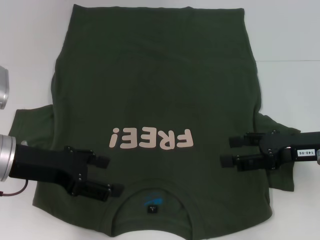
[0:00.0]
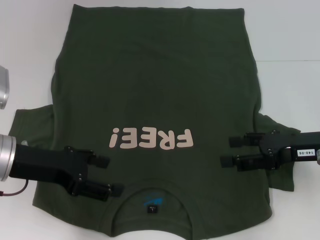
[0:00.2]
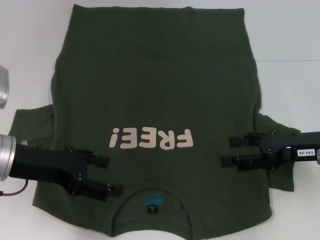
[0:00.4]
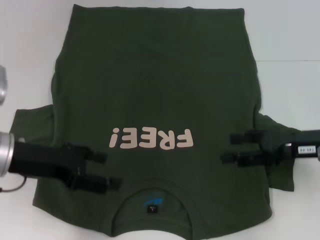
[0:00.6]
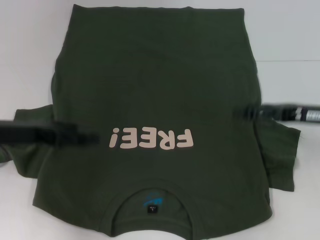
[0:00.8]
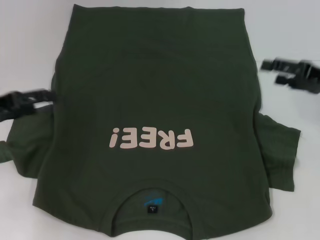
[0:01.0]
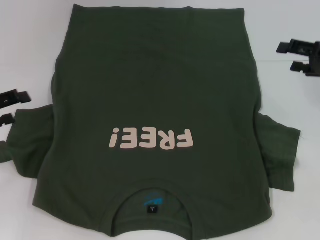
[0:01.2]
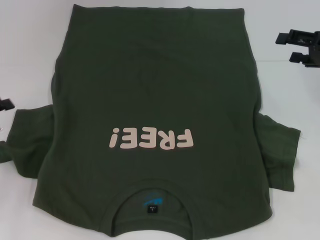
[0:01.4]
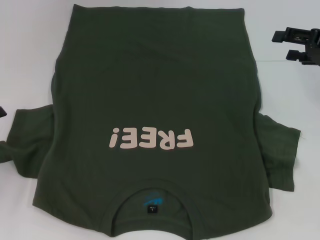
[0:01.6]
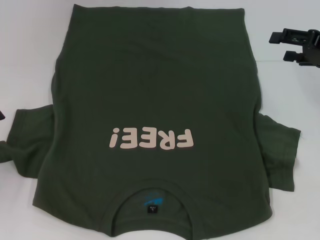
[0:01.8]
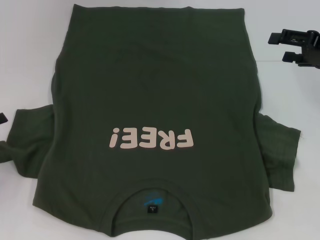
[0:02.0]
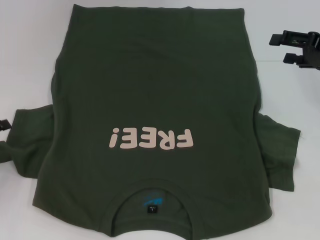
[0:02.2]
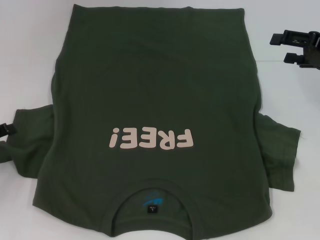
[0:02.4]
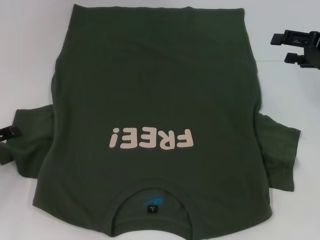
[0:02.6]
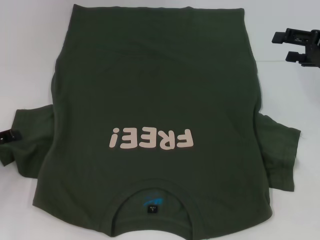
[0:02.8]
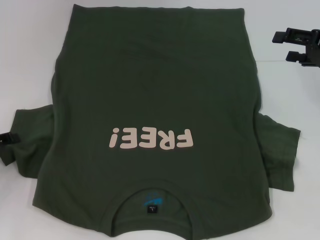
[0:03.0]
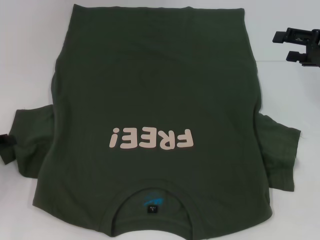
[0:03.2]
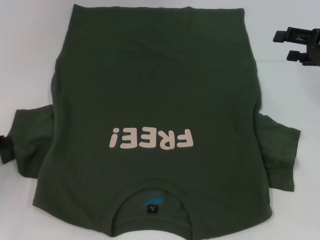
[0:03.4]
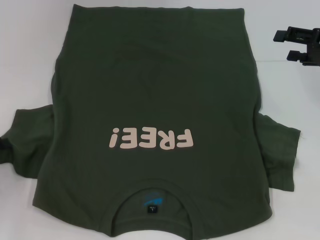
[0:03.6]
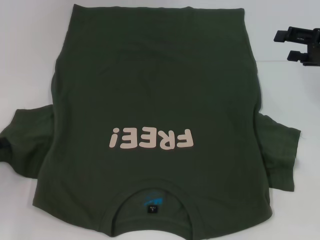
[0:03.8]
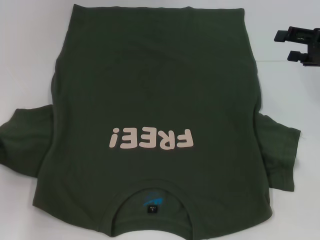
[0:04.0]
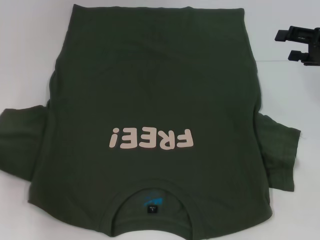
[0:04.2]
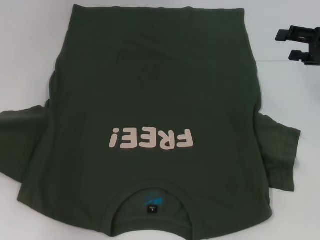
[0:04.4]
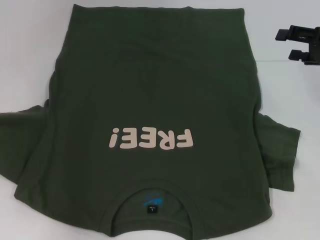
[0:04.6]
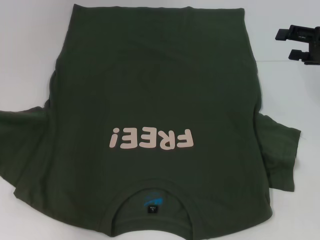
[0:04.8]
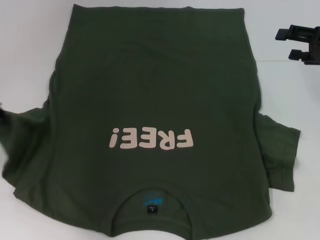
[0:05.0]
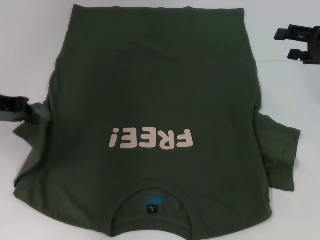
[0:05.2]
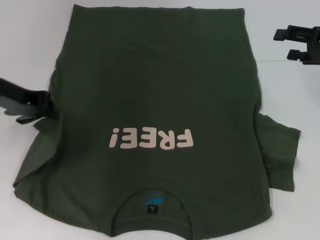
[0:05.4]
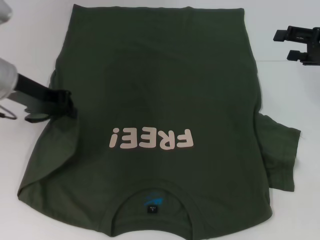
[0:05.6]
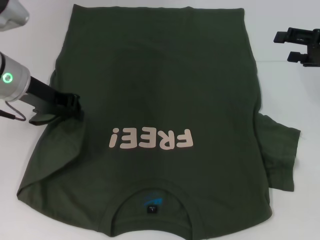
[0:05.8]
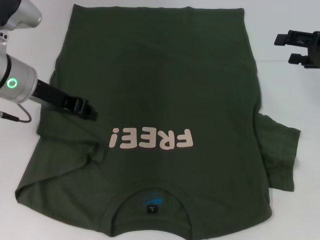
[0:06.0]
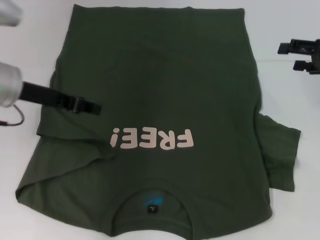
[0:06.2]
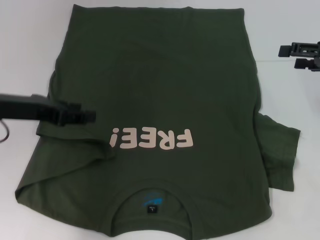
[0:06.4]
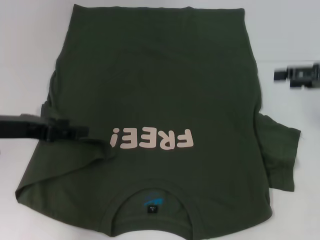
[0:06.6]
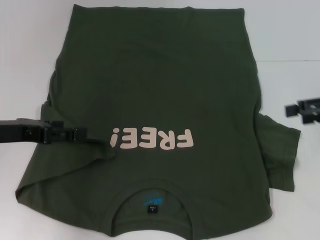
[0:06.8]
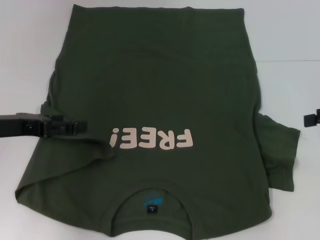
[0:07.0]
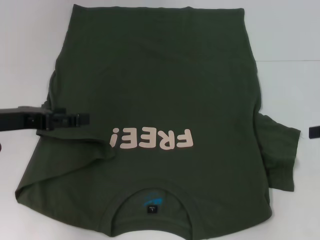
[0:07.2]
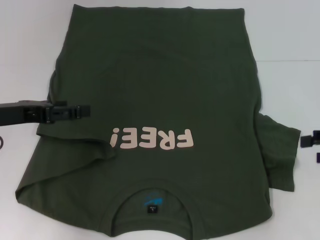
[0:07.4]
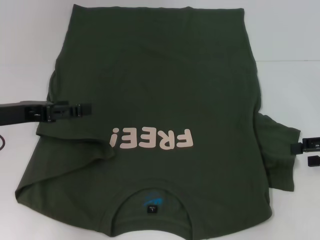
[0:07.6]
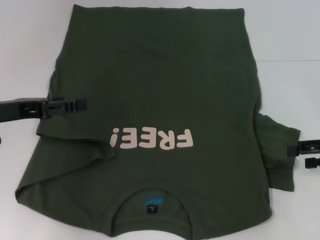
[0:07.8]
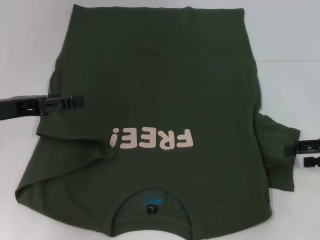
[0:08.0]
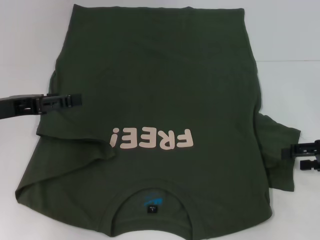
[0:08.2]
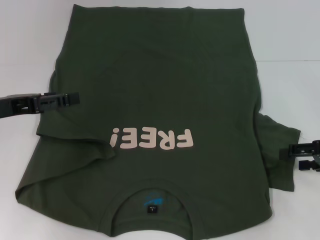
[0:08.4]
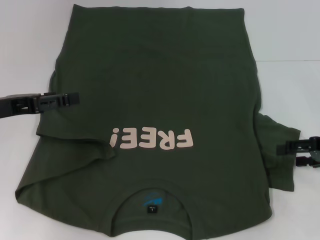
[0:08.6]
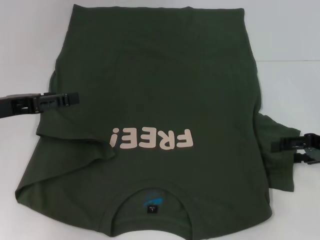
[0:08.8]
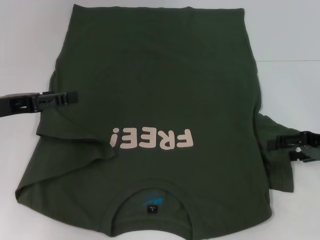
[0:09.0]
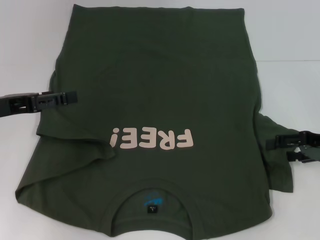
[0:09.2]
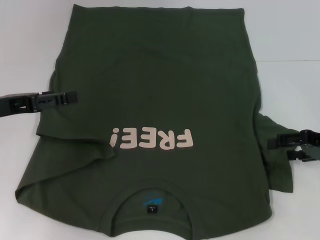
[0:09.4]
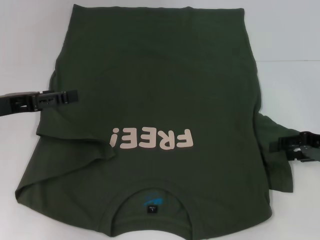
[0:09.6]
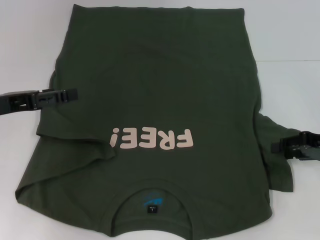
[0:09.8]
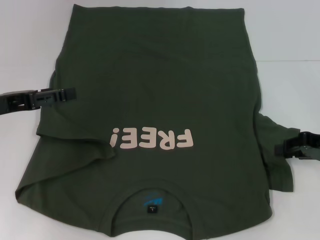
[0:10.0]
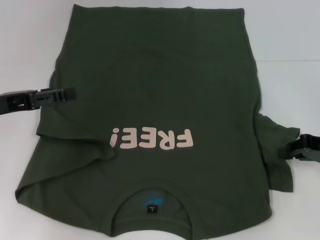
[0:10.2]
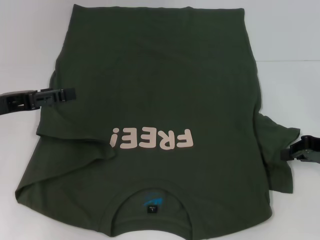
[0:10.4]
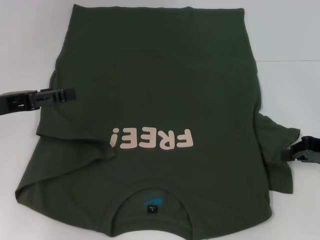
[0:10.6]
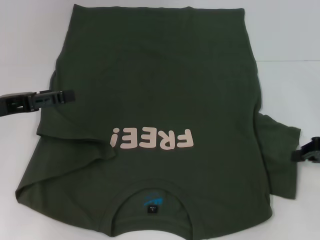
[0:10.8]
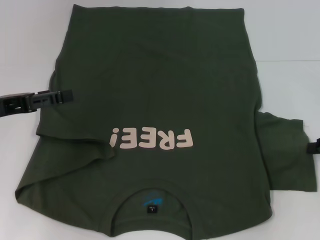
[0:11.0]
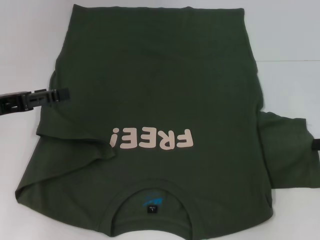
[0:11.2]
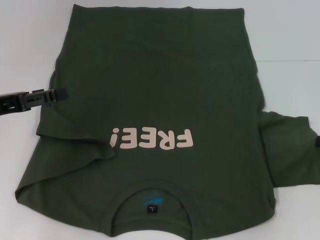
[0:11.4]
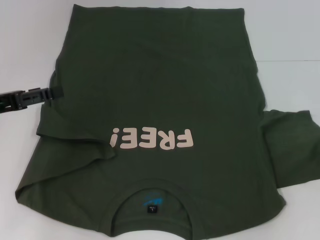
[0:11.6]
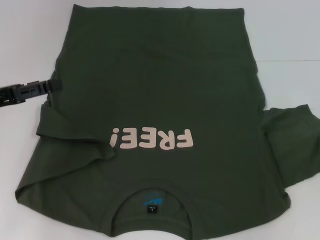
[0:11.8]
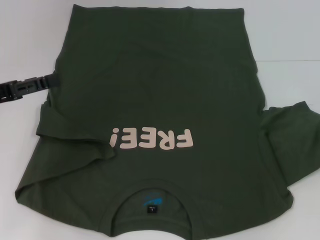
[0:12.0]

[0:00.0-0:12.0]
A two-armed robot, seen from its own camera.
Step, 0:00.0 to 0:06.4: Fold the bottom left sleeve with your left hand.
0:00.0 to 0:01.6: The right gripper is displaced forward and to the right by about 10 cm; the left gripper travels to the left by about 15 cm.
0:03.0 to 0:04.4: The left gripper heads upward, covering roughly 10 cm, and closes its fingers.
0:04.4 to 0:06.0: The left gripper heads to the right, covering about 15 cm.
0:06.0 to 0:07.6: The left gripper heads backward and to the left, covering approximately 10 cm, and opens. Meanwhile the right gripper shifts approximately 10 cm backward.
0:07.6 to 0:09.0: The grippers move only a little.
0:09.0 to 0:10.4: The right gripper closes.
0:10.4 to 0:12.0: The right gripper moves to the right, about 5 cm.

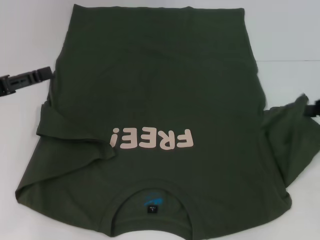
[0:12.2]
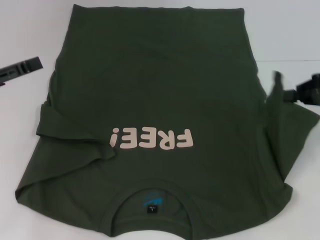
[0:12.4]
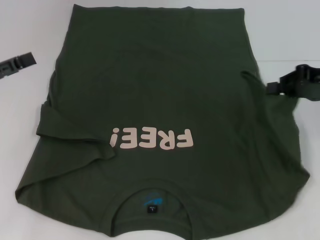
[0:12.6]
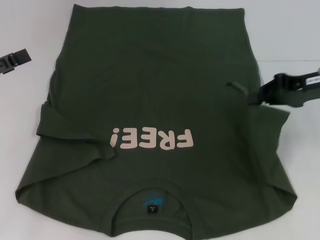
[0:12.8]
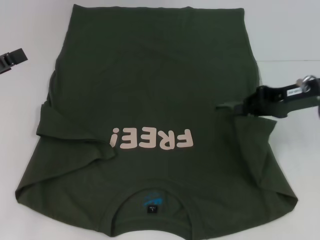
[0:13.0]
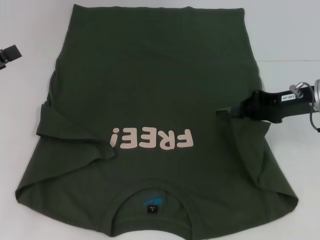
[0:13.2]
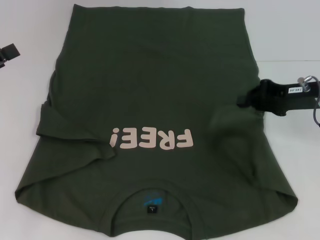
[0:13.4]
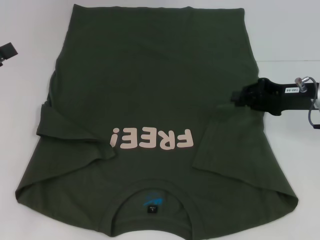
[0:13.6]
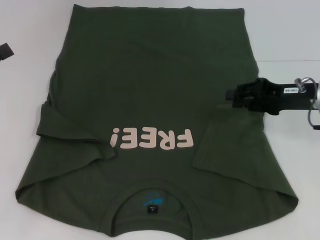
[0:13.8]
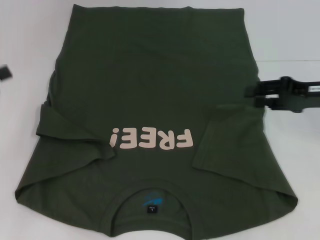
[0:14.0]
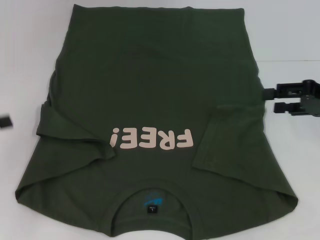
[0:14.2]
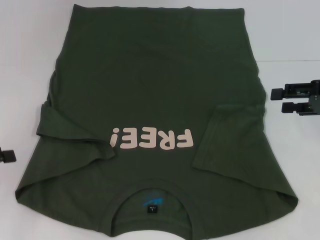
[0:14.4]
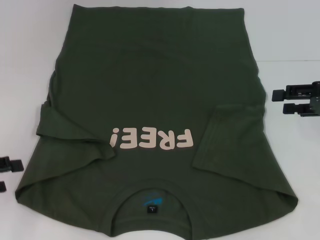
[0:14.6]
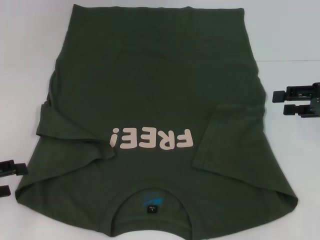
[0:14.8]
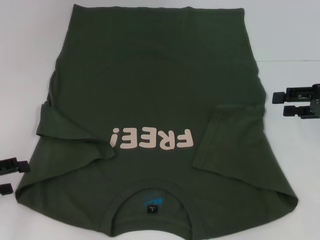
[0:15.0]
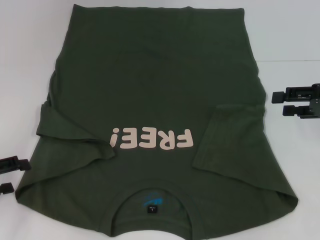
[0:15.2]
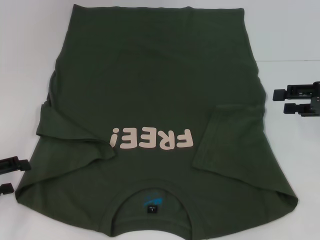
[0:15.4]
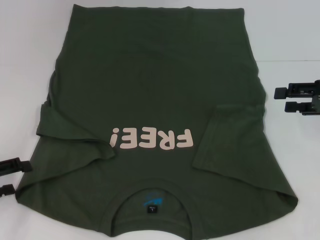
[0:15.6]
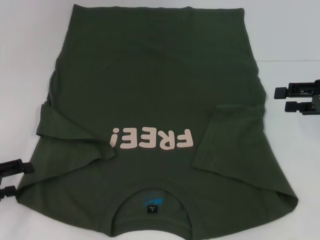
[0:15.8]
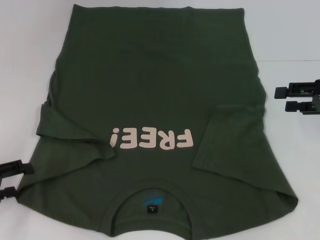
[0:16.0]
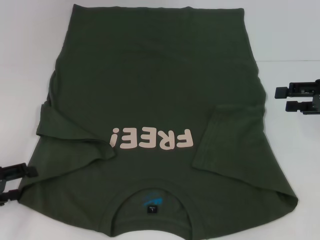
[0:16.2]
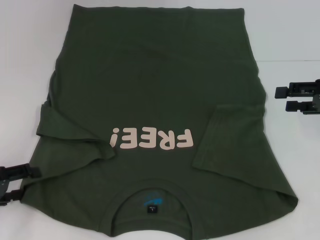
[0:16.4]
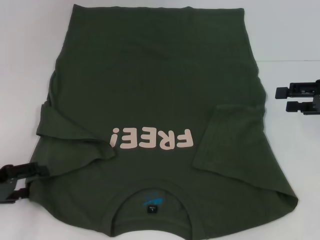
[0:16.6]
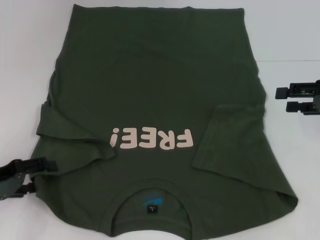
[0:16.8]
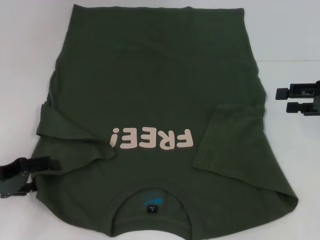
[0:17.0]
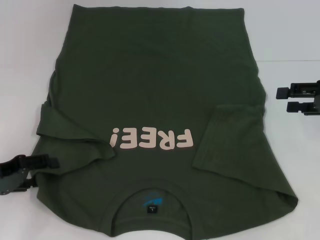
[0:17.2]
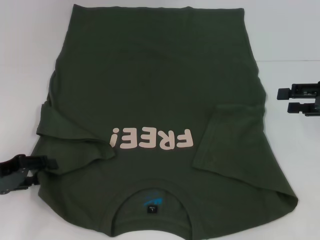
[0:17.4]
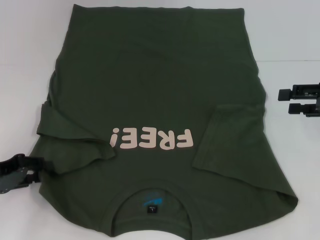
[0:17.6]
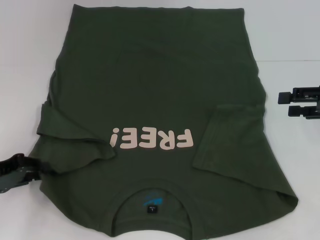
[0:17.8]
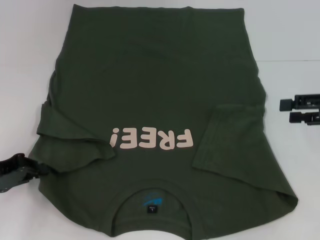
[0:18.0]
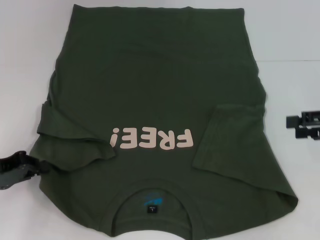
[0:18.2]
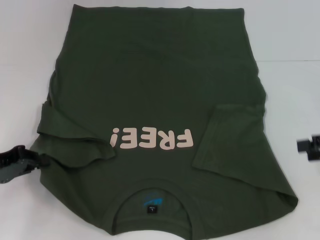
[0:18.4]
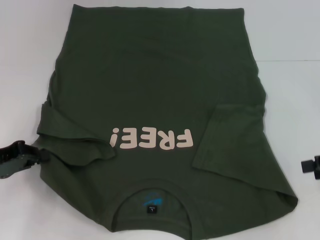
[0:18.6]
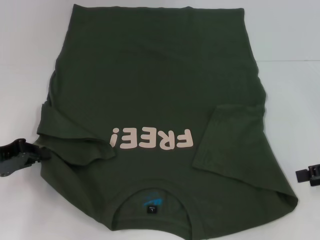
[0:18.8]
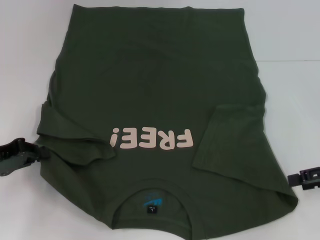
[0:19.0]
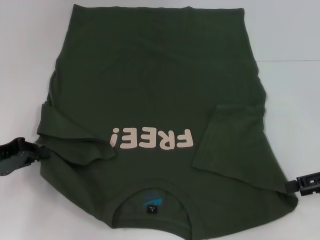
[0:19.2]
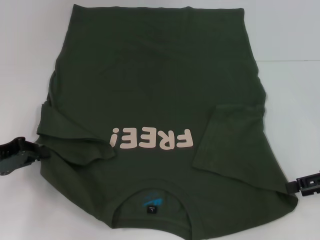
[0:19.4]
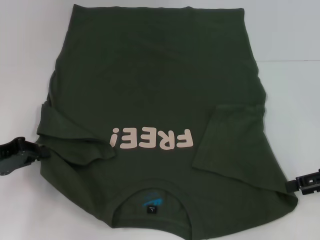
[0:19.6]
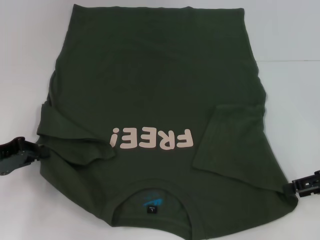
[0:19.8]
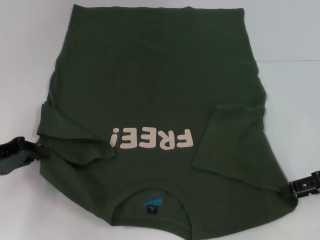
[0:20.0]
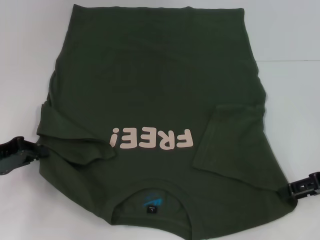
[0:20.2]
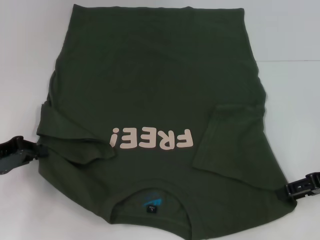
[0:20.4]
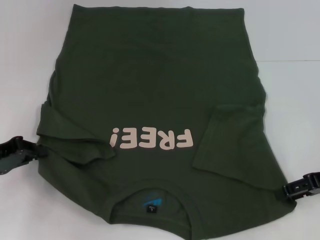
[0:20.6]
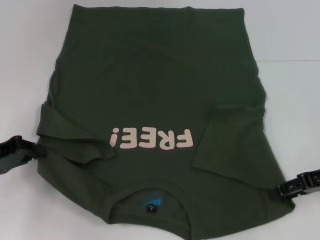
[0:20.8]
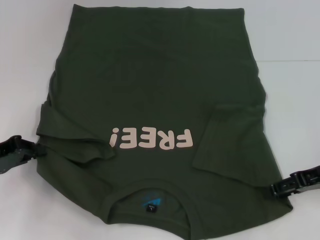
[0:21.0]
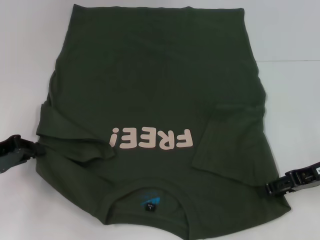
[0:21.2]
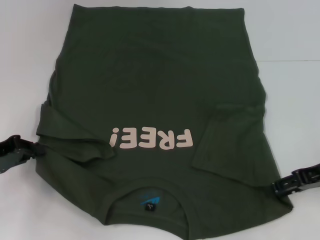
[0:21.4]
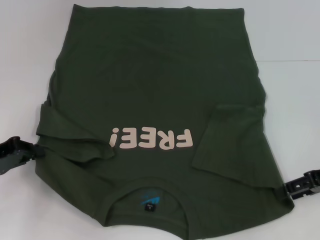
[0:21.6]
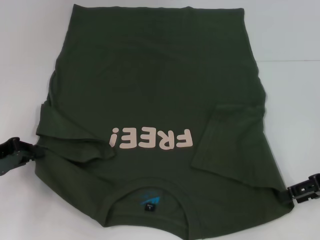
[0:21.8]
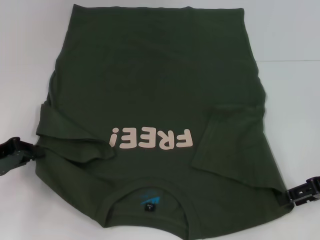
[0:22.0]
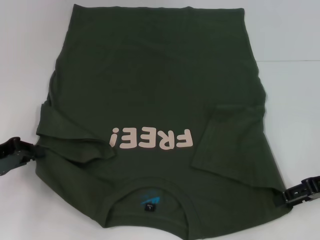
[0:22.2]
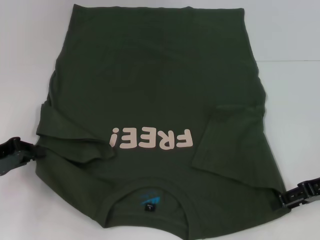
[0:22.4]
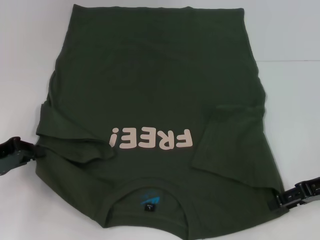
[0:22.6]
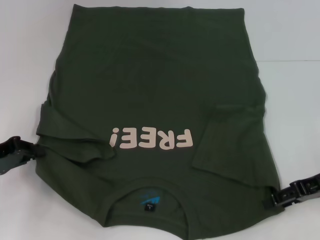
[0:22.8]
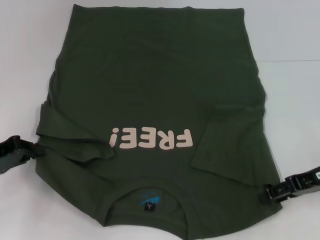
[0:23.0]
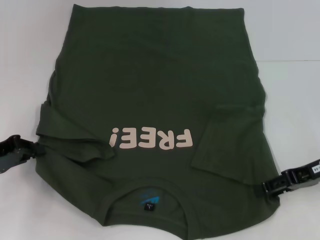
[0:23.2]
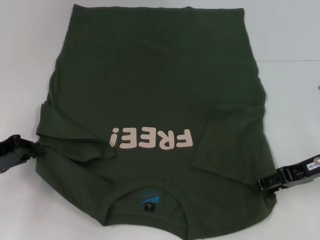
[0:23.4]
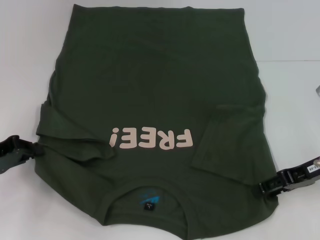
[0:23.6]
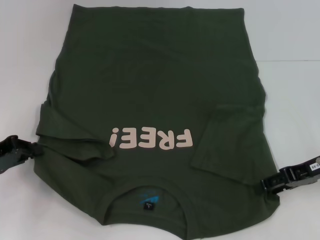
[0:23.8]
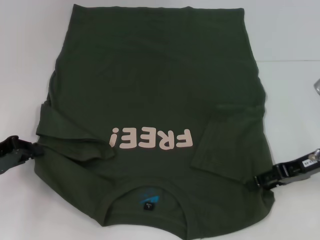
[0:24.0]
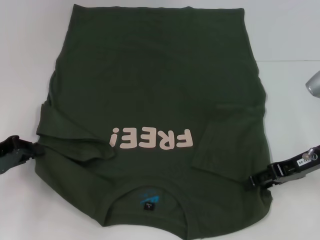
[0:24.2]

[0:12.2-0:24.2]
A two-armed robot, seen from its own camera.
Step, 0:13.8 to 0:17.6: Grab the bottom left corner with your left hand.
0:12.2 to 0:13.8: The right gripper heads to the left, covering some 10 cm.
0:13.8 to 0:15.2: The right gripper moves to the right, some 5 cm, and opens; the left gripper heads downward, covering some 5 cm.
0:15.2 to 0:16.6: The grippers move only a little.
0:16.6 to 0:18.2: The left gripper closes its fingers.
0:18.2 to 0:19.8: The right gripper moves about 5 cm.
0:19.8 to 0:22.6: The grippers move only a little.
0:22.6 to 0:24.2: There are only small adjustments of the grippers.
